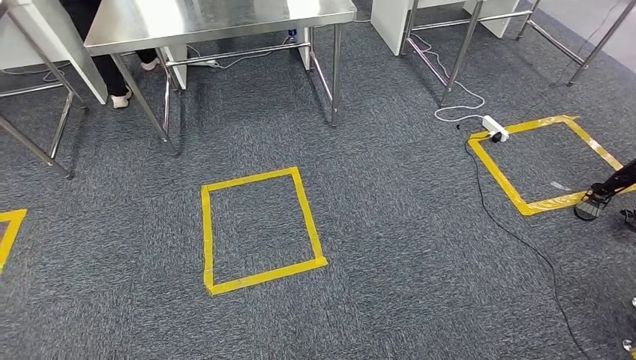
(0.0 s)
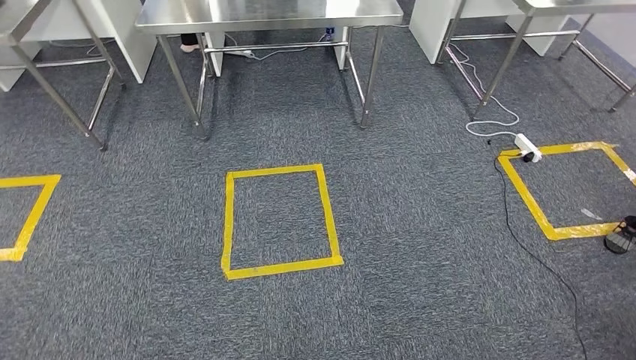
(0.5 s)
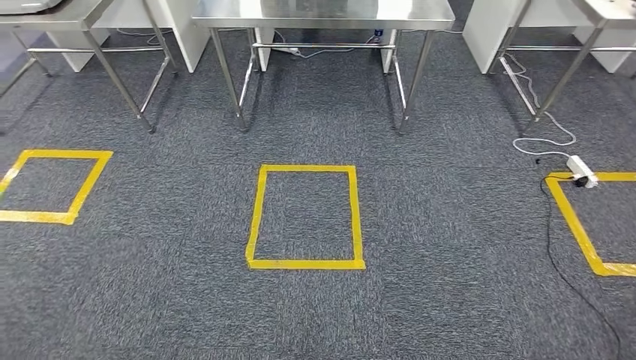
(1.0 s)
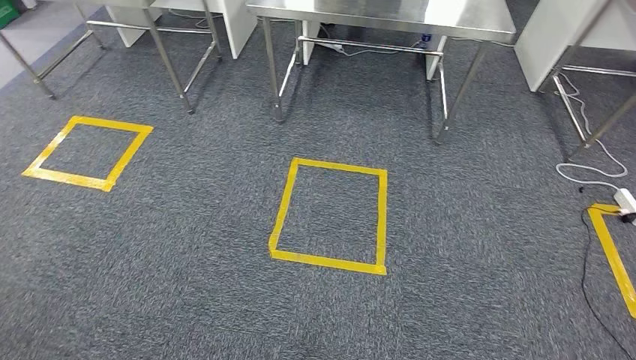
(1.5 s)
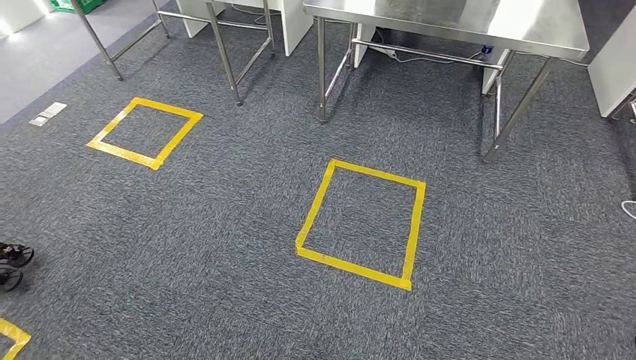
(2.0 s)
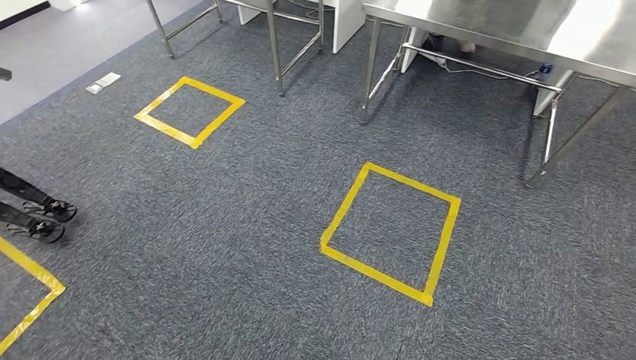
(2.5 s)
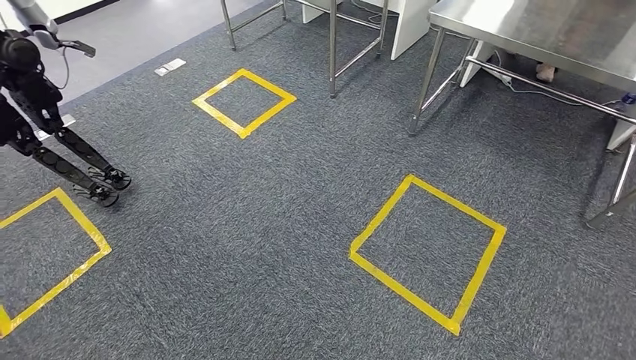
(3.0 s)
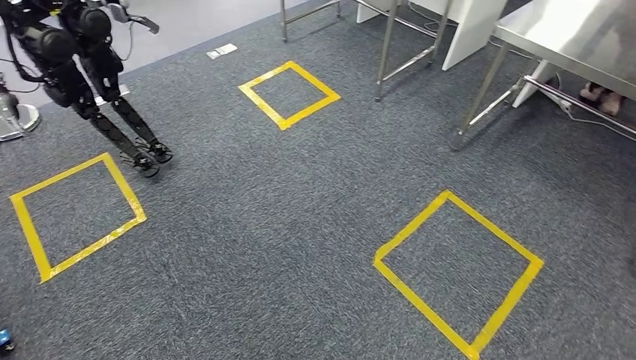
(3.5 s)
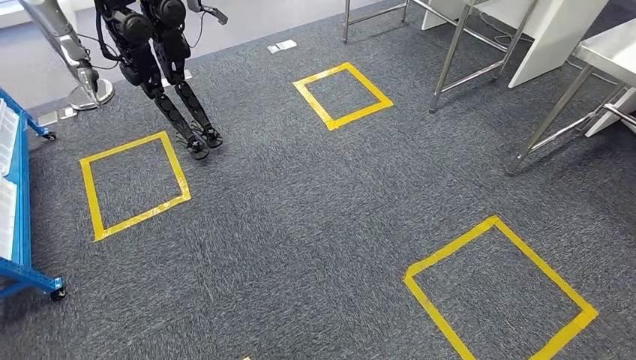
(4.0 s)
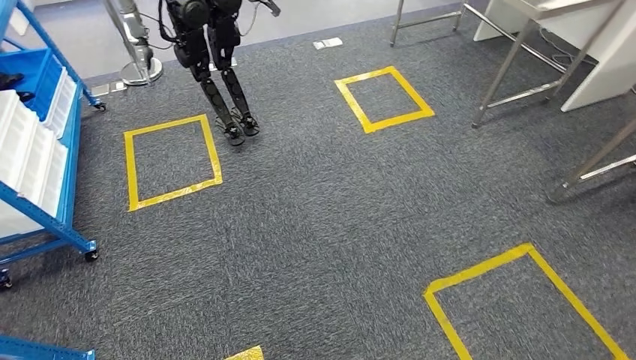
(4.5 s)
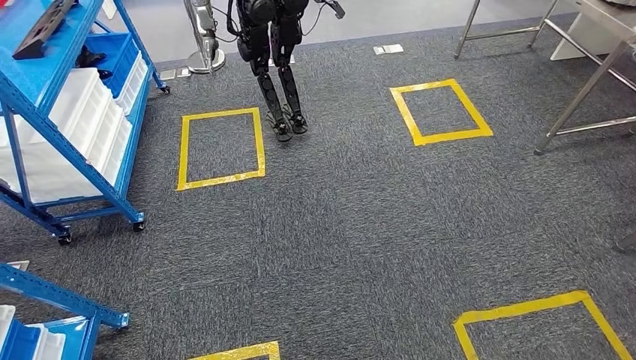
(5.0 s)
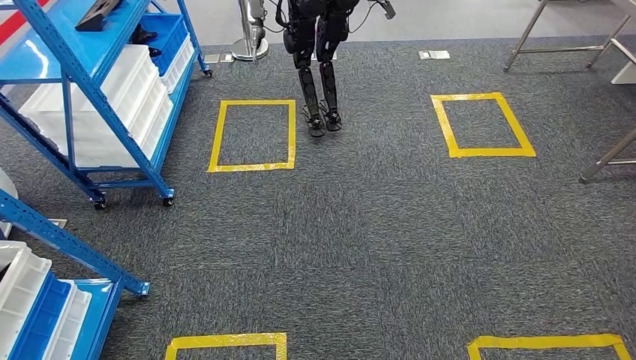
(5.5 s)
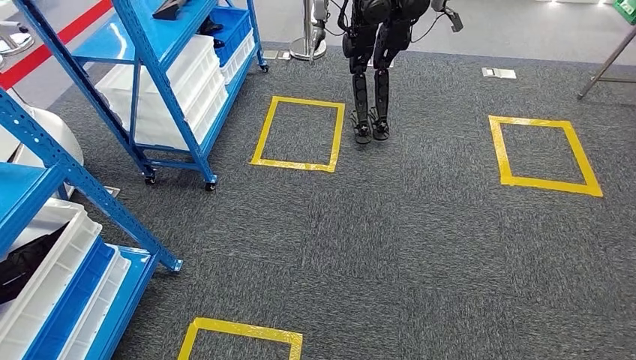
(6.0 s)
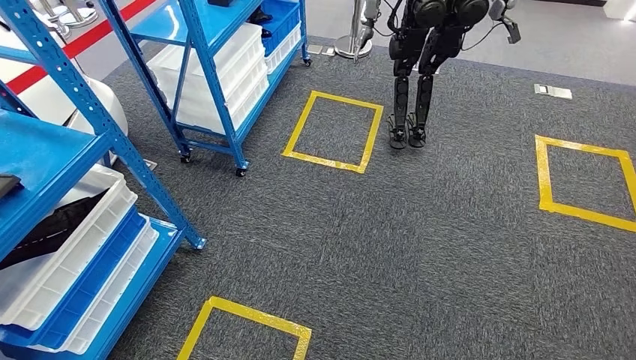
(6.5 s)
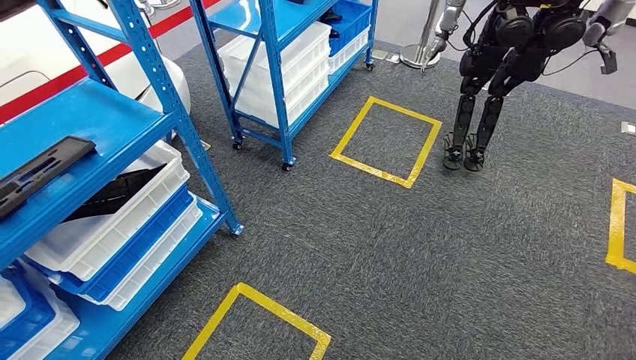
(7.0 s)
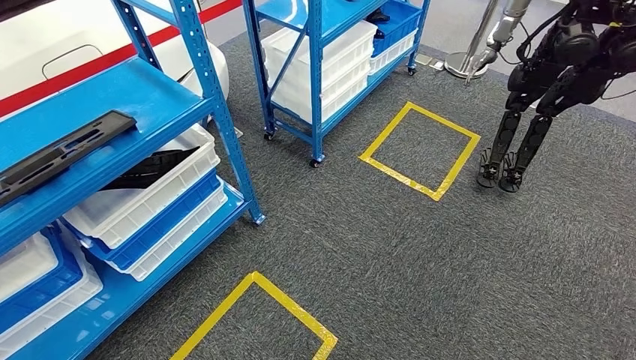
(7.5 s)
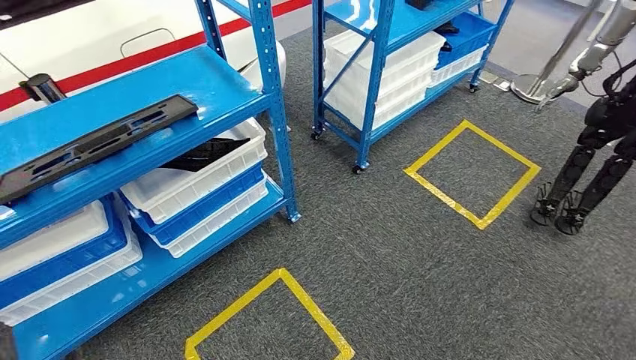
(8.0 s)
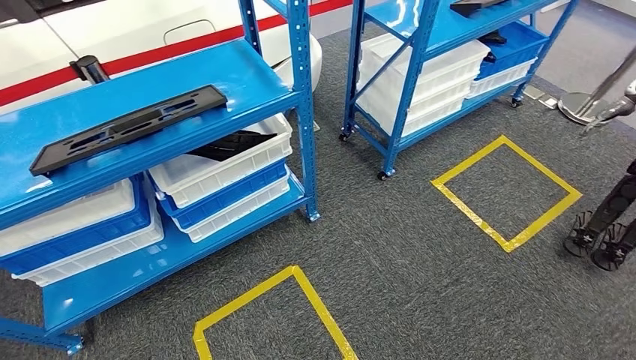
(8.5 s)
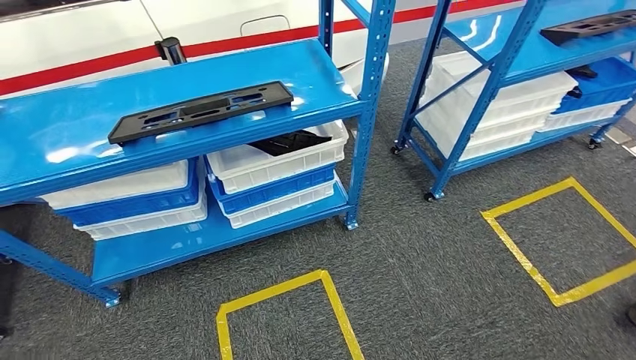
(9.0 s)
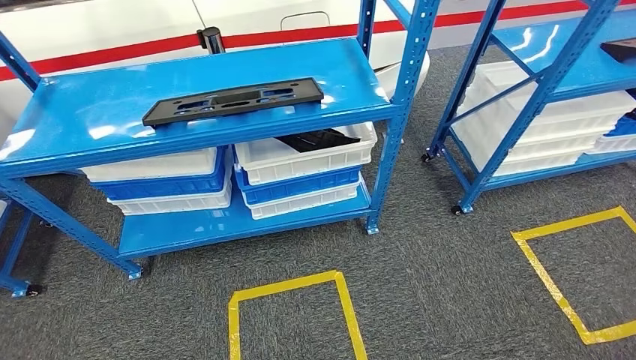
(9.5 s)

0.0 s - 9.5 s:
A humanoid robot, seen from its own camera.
Step, 0.0 s - 9.5 s: Move to the initial position of the shelf.
